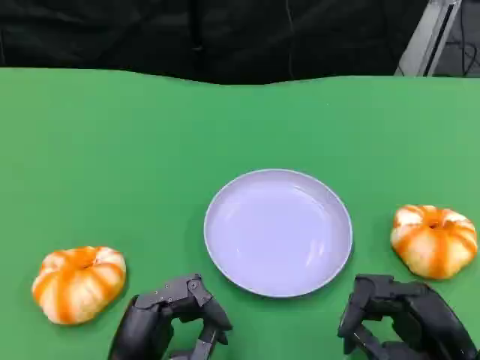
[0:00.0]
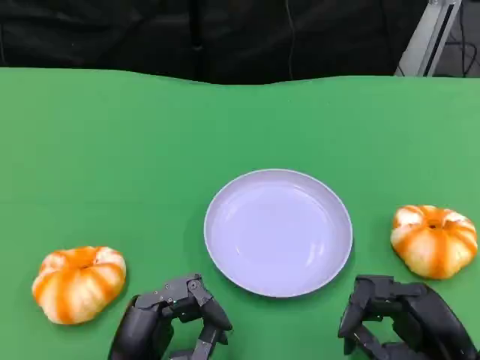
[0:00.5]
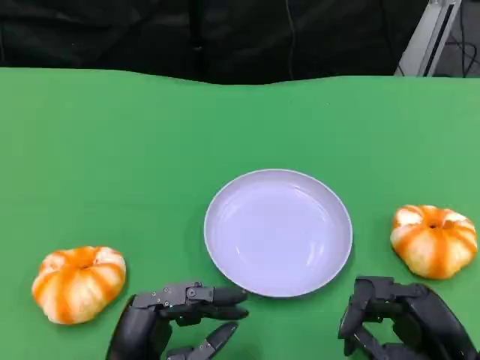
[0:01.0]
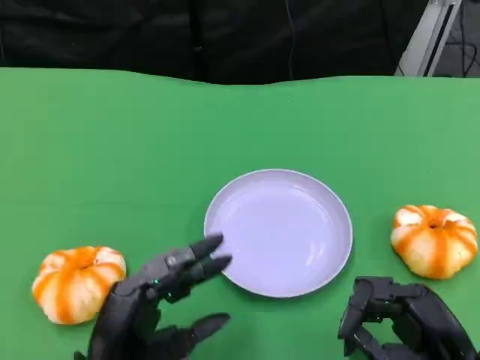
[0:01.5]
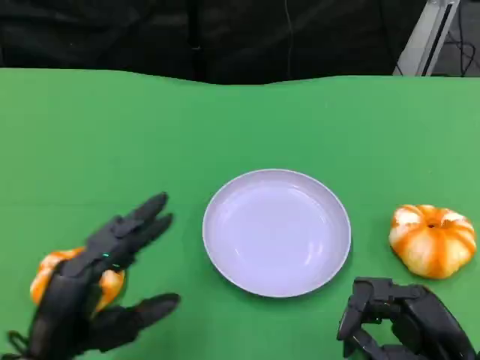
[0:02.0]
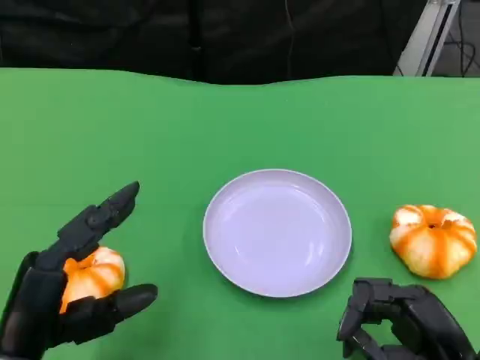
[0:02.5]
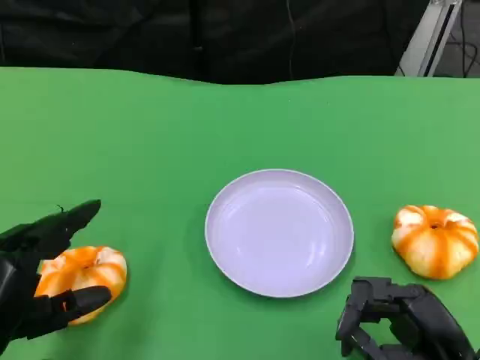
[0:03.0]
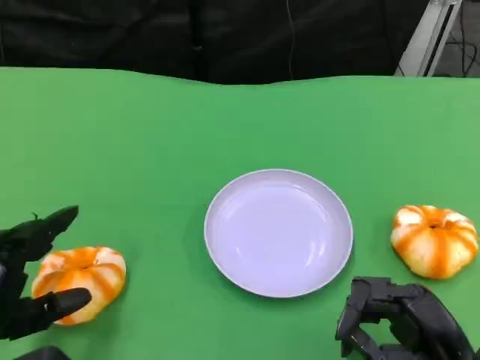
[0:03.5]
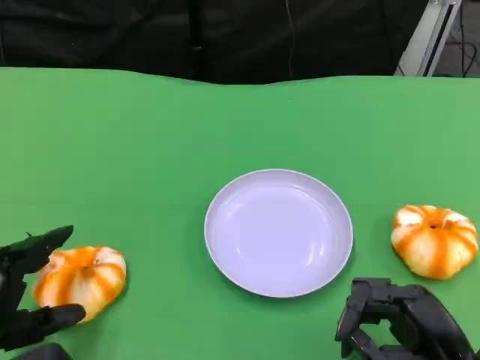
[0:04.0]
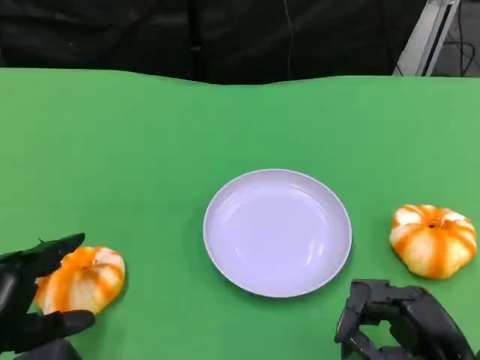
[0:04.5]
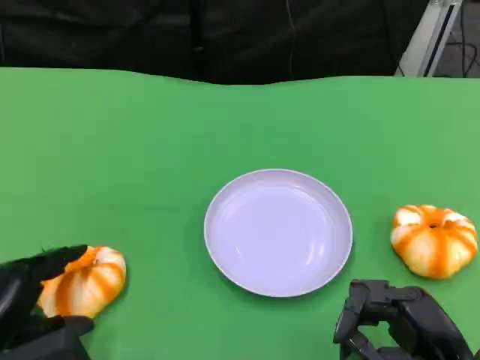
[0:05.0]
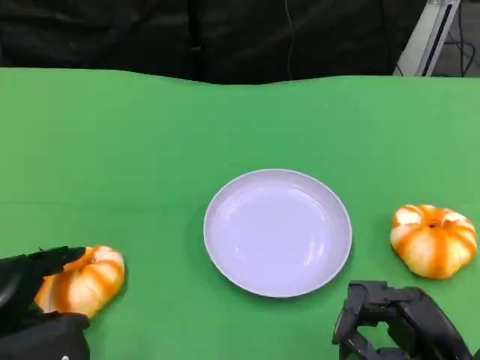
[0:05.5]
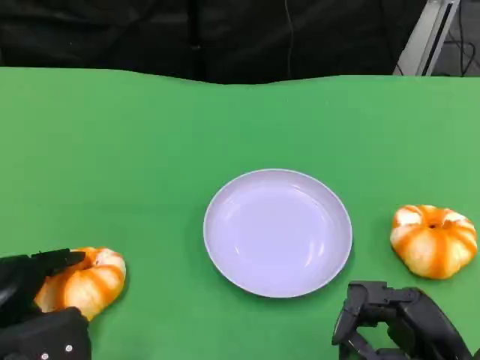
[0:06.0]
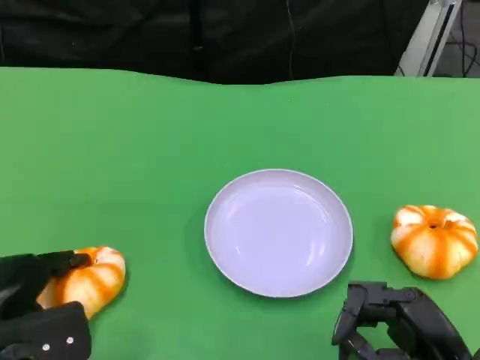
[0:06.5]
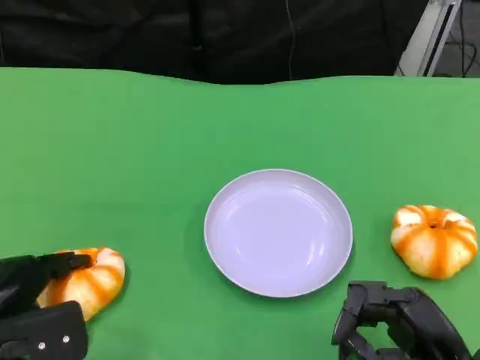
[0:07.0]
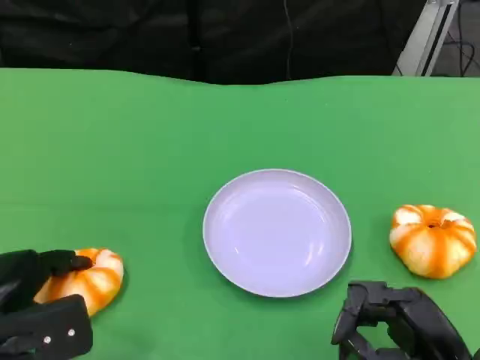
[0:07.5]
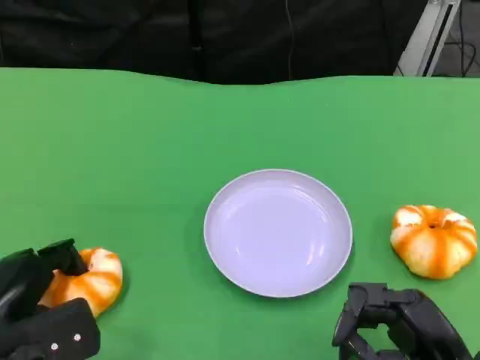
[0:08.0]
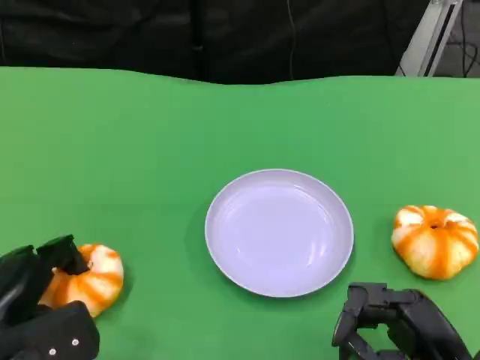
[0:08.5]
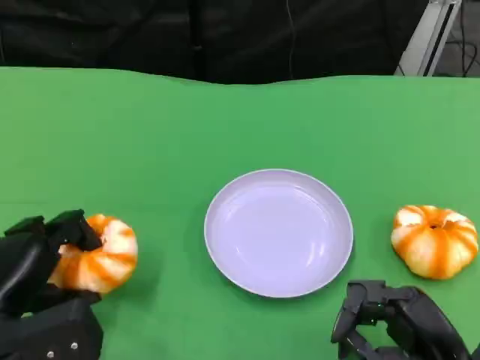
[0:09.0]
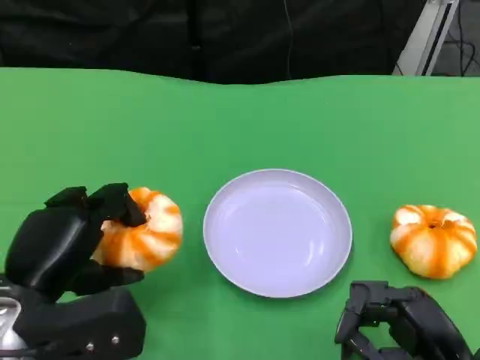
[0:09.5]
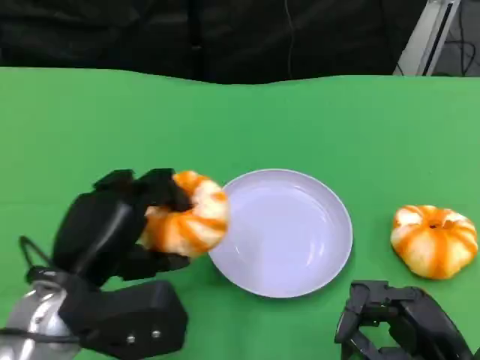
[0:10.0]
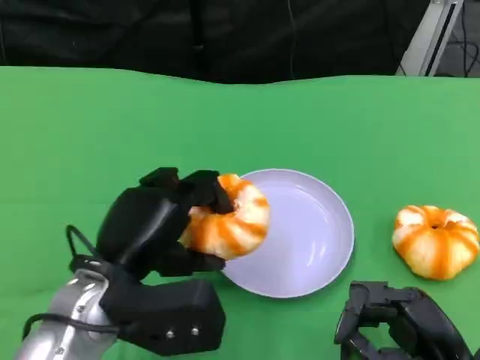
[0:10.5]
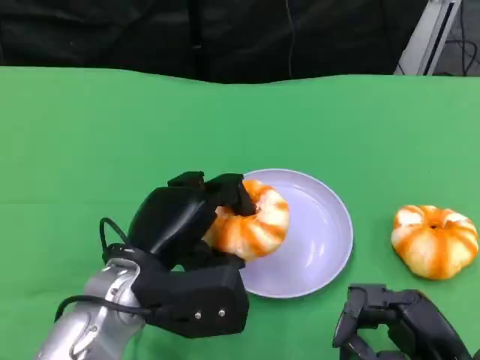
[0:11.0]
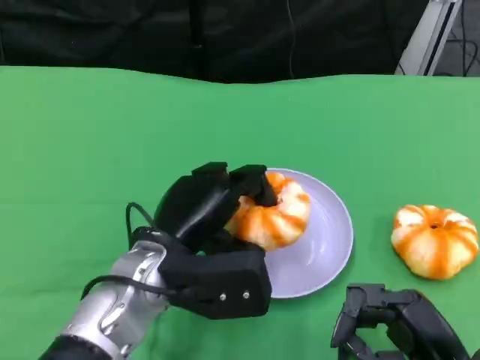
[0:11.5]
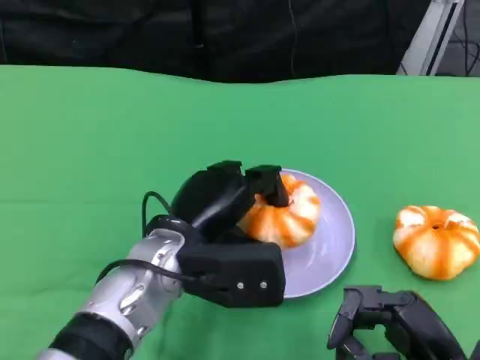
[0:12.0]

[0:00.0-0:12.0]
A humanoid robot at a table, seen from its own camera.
Task of the whole recording: Grasp the bread from the table and place it into the plate.
0:00.0 to 0:02.0: The left hand goes some 10 cm to the left and upward.
0:02.0 to 0:04.0: The left hand is displaced to the left by about 5 cm.
0:06.0 to 0:08.0: The hands stay close to where they were, moving slightly.
0:08.0 to 0:10.0: The left hand shifts some 10 cm to the right and upward.
0:10.0 to 0:12.0: The left hand heads to the right and forward, covering approximately 10 cm.

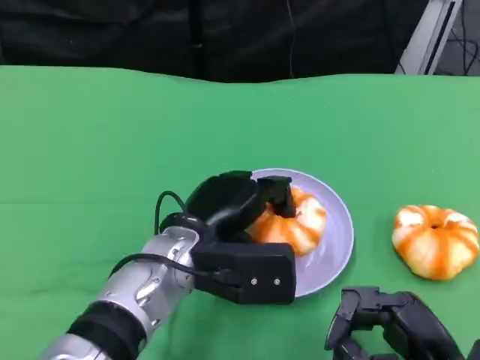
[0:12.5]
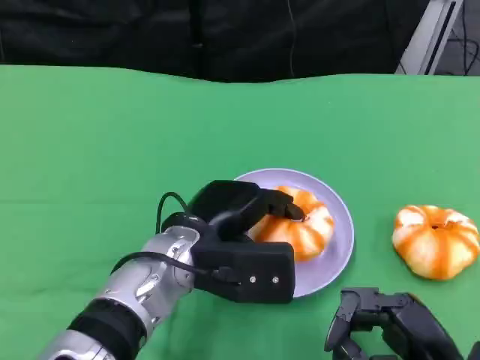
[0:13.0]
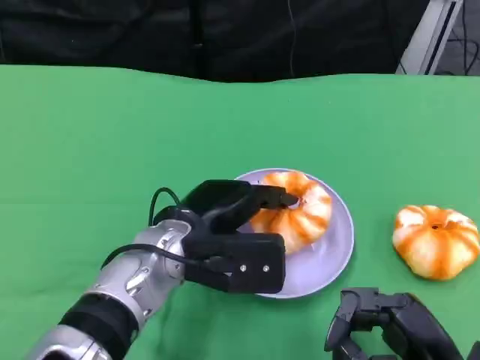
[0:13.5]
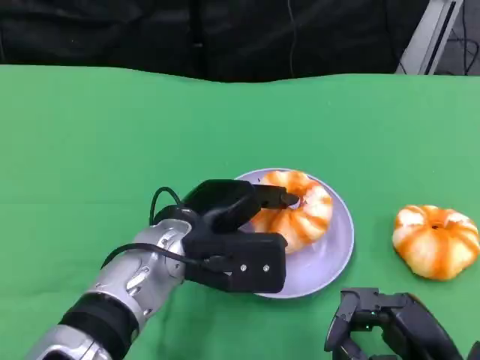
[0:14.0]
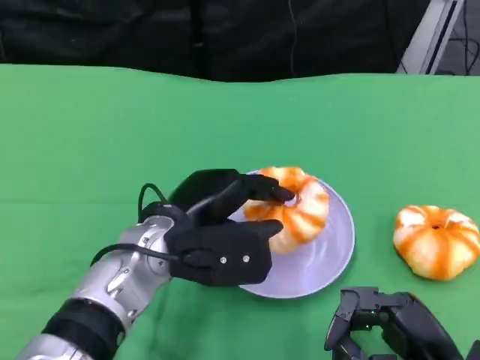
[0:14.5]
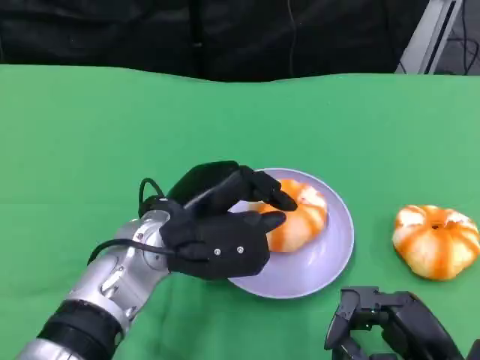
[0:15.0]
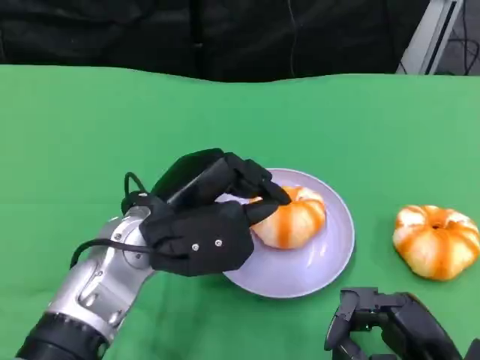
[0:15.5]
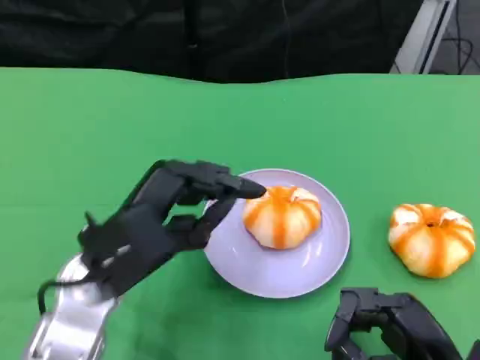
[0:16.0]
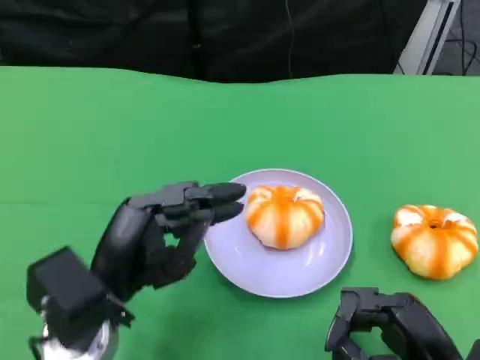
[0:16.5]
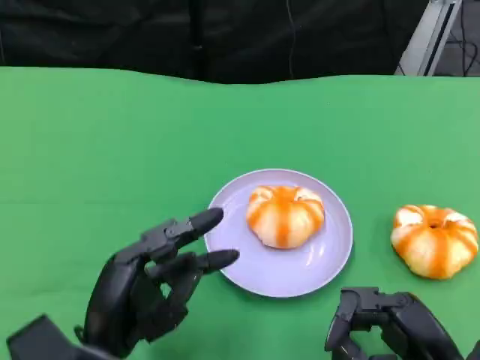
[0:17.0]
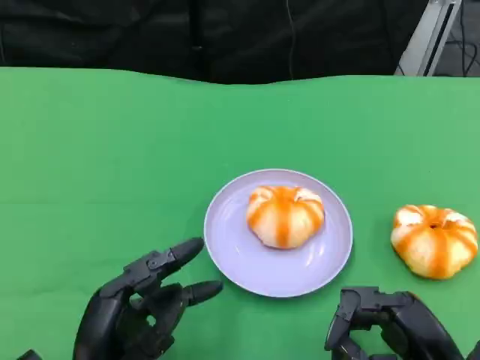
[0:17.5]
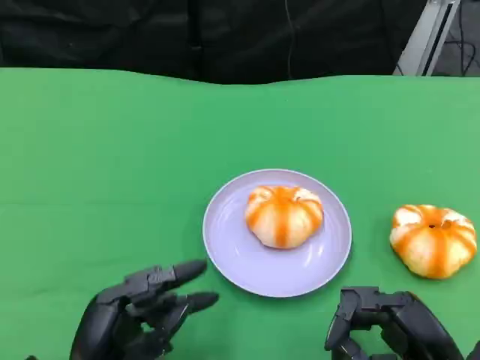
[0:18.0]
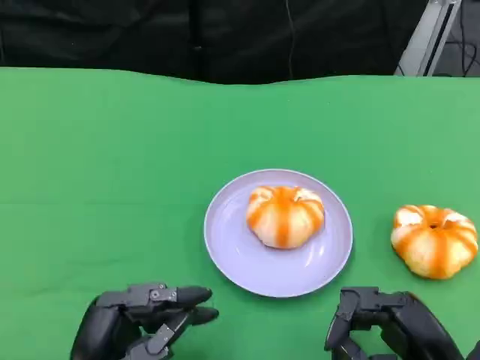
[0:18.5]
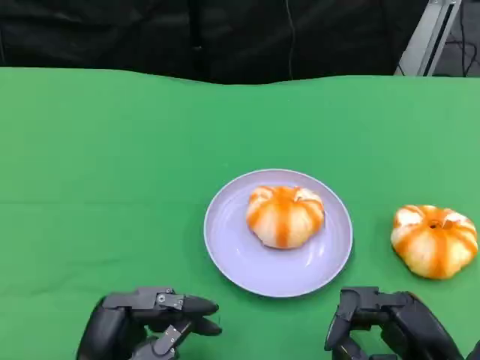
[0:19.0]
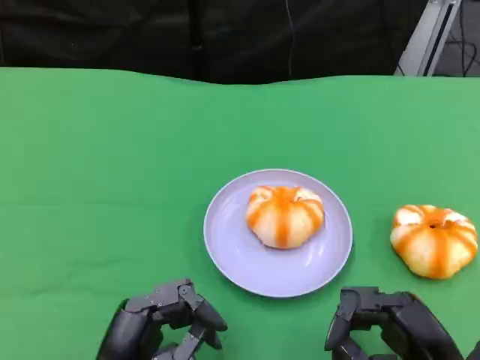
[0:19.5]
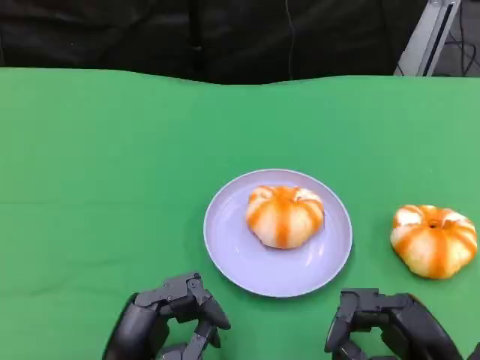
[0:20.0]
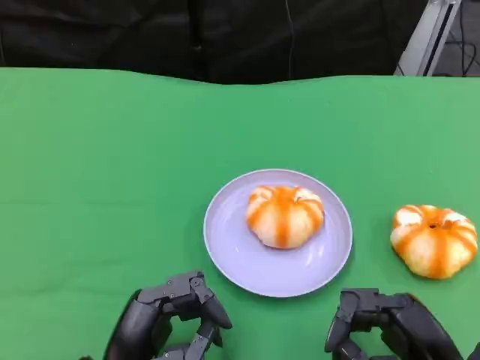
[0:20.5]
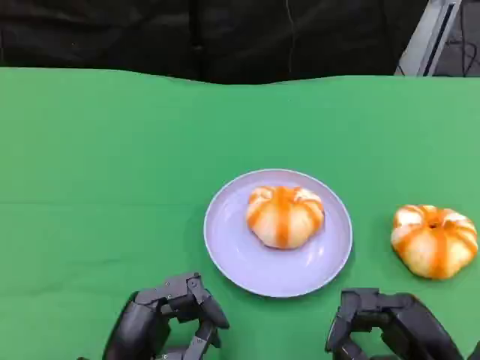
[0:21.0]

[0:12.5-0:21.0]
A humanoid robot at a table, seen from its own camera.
Task of the whole recording: Grasp the bread from the table and place it into the plate.
0:12.5 to 0:14.5: There are only small adjustments of the hands.
0:14.5 to 0:16.5: The left hand is displaced backward and to the left by some 10 cm.
0:16.5 to 0:19.0: The left hand goes approximately 10 cm downward and backward.
0:19.0 to 0:21.0: The hands stay close to where they were, moving slightly.

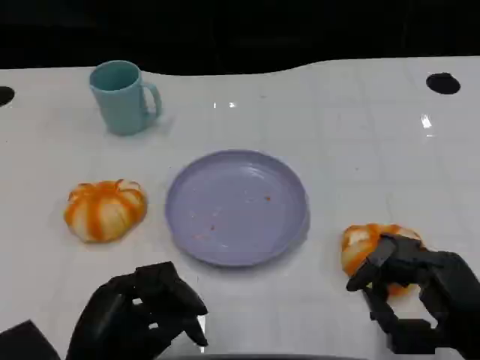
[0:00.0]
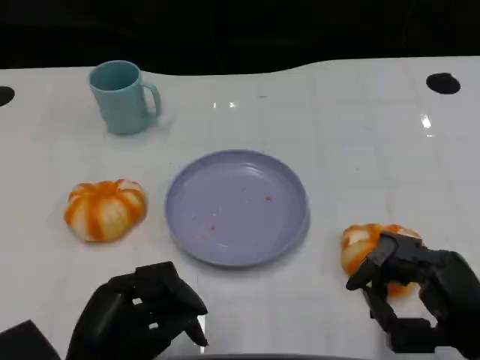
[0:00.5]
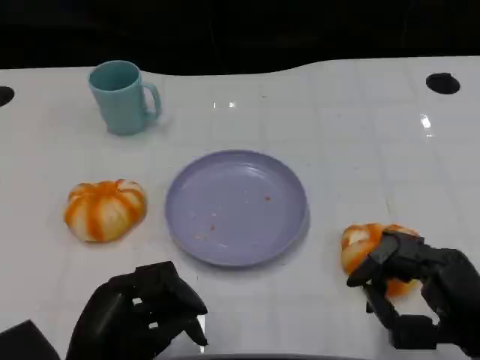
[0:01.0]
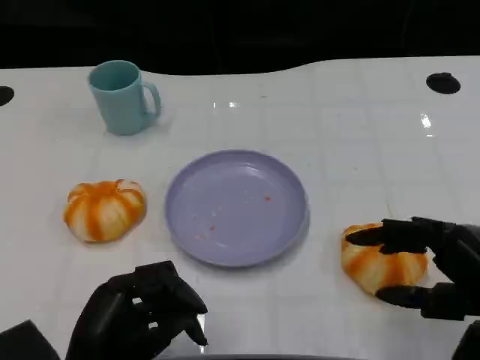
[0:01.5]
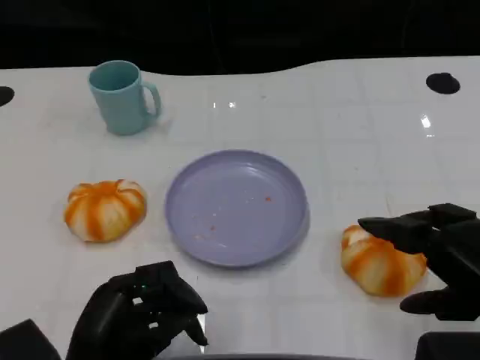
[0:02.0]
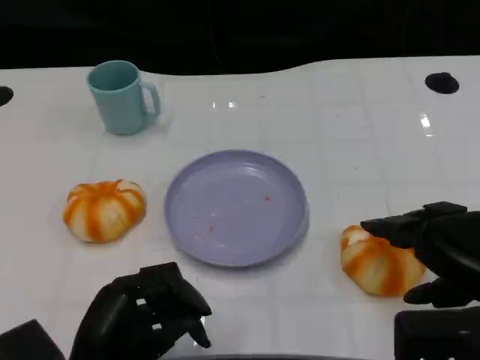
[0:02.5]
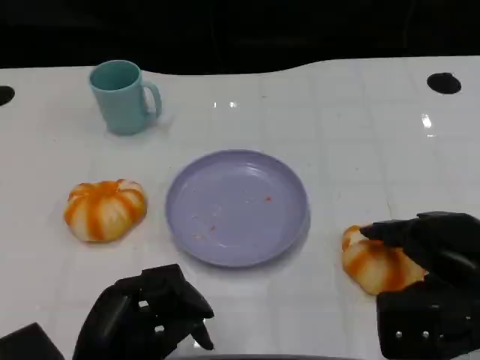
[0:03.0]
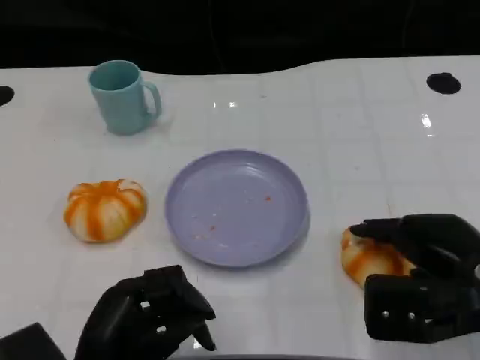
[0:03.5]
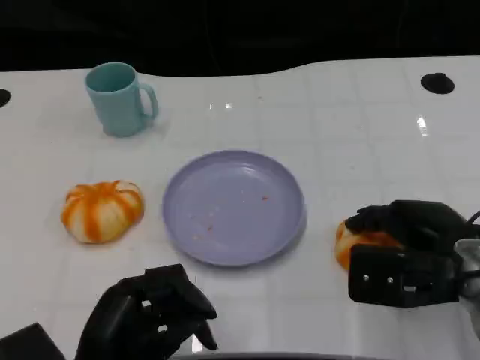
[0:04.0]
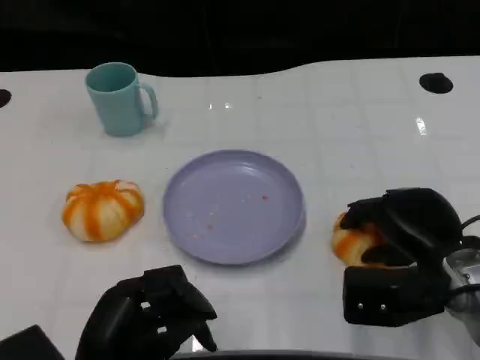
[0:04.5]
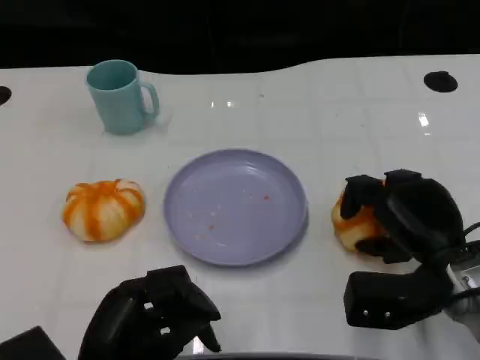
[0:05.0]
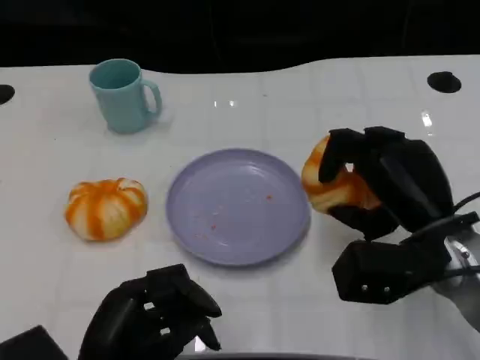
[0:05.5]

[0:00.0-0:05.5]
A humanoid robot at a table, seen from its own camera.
Task of the whole recording: Grasp the bread from the table and place it into the plate.
0:00.0 to 0:02.0: The right hand moves upward, roughly 5 cm.
0:02.0 to 0:03.5: The right hand goes roughly 5 cm forward.
0:03.5 to 0:05.5: The right hand ends up some 5 cm from where it was.
